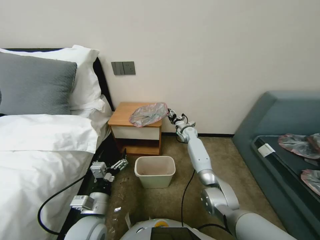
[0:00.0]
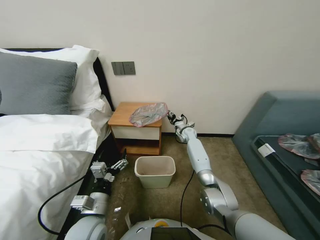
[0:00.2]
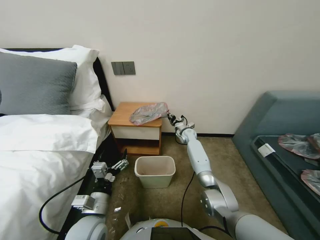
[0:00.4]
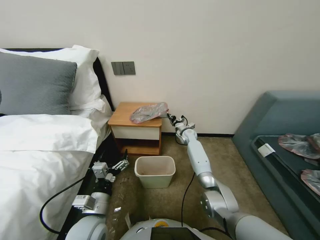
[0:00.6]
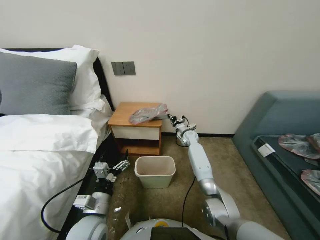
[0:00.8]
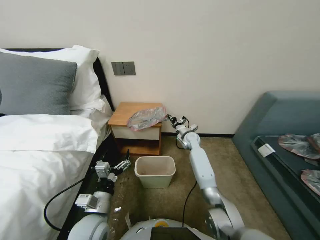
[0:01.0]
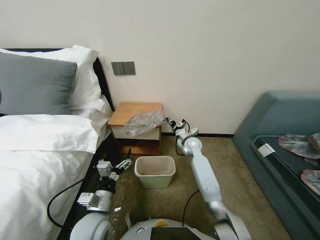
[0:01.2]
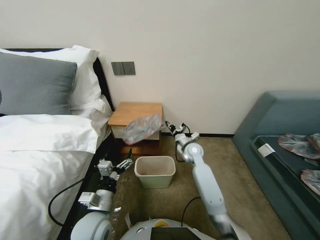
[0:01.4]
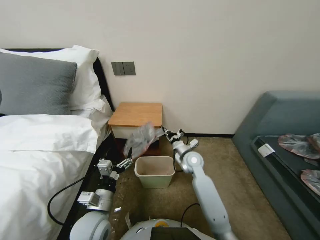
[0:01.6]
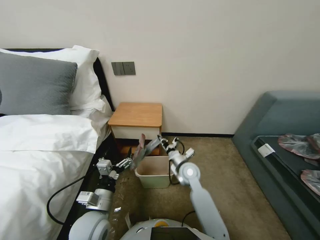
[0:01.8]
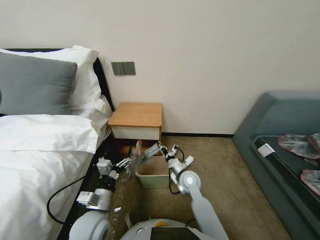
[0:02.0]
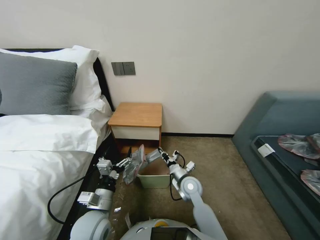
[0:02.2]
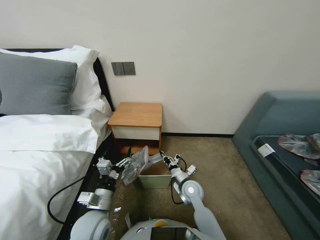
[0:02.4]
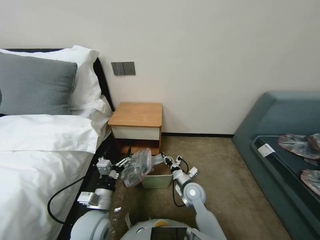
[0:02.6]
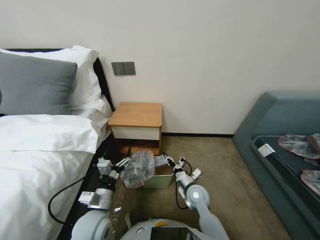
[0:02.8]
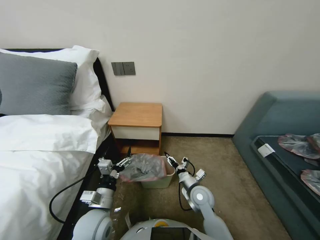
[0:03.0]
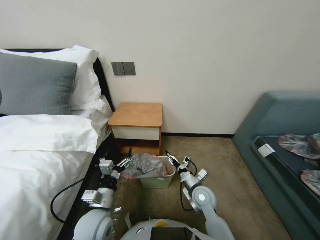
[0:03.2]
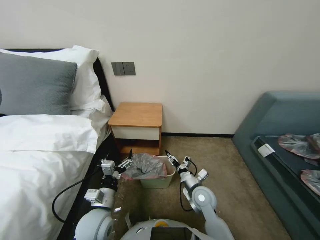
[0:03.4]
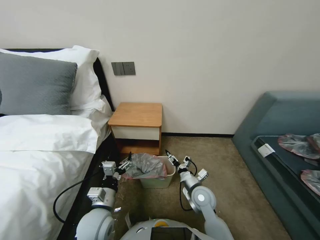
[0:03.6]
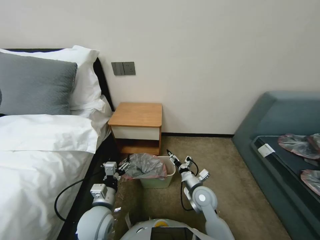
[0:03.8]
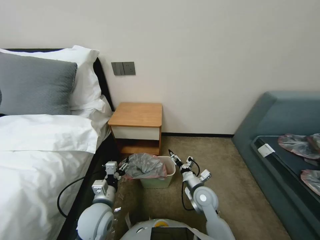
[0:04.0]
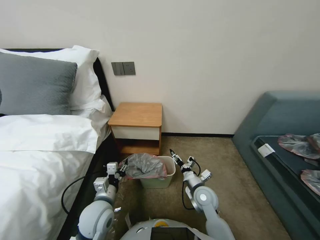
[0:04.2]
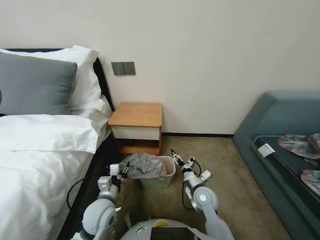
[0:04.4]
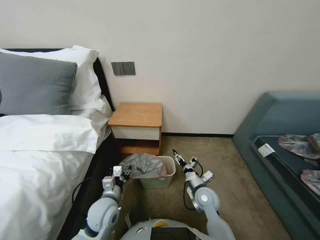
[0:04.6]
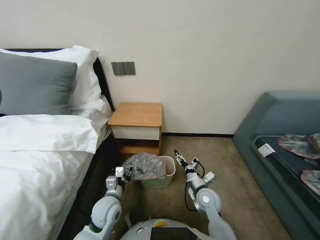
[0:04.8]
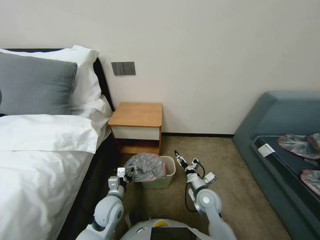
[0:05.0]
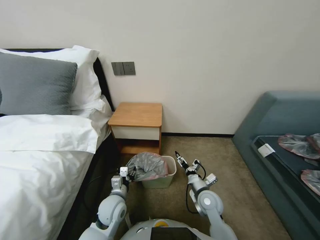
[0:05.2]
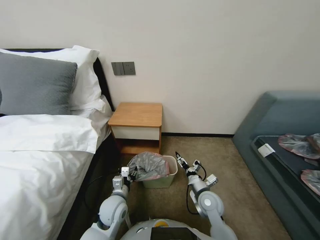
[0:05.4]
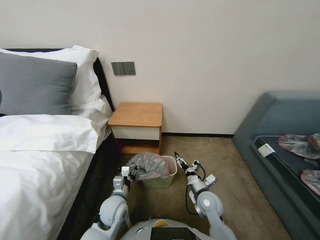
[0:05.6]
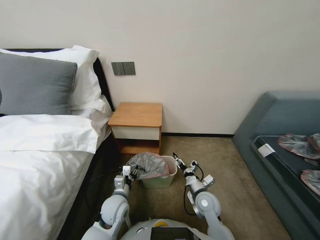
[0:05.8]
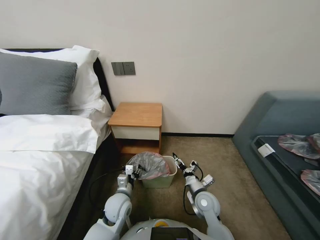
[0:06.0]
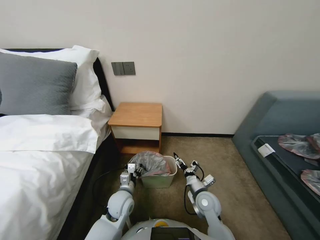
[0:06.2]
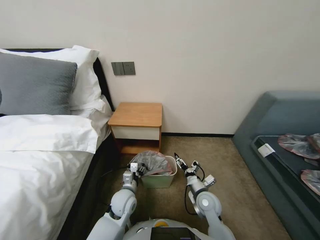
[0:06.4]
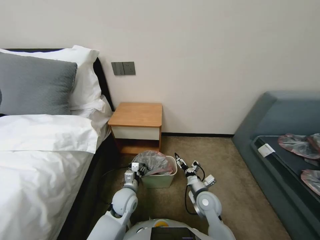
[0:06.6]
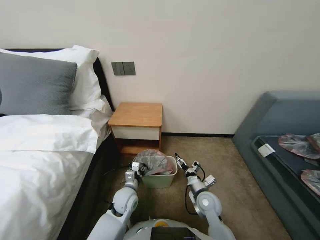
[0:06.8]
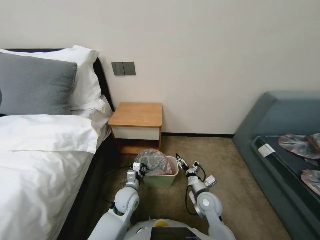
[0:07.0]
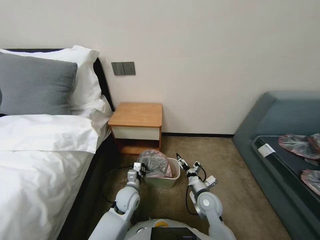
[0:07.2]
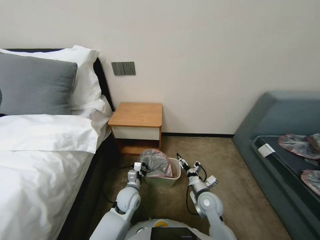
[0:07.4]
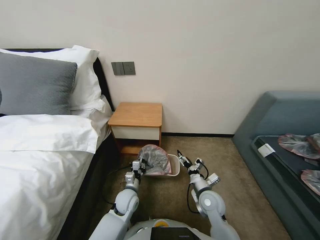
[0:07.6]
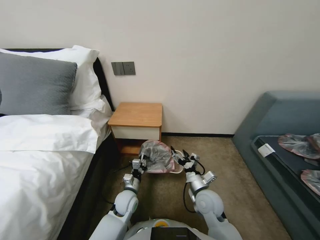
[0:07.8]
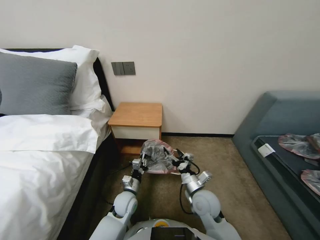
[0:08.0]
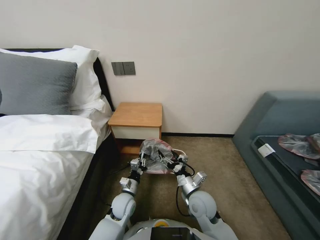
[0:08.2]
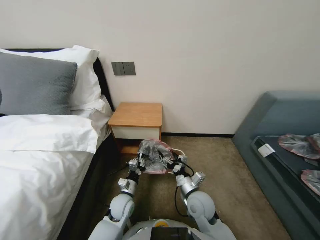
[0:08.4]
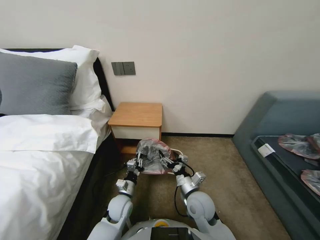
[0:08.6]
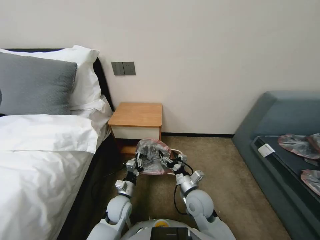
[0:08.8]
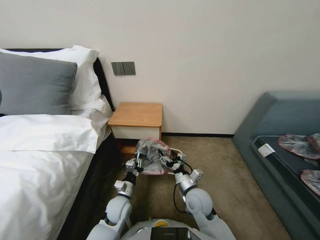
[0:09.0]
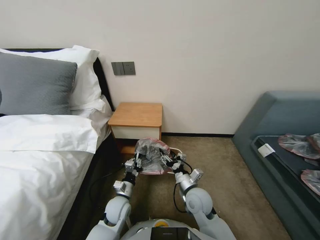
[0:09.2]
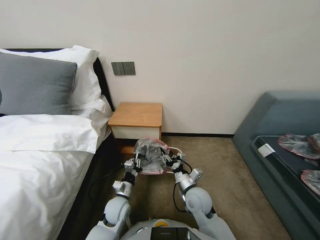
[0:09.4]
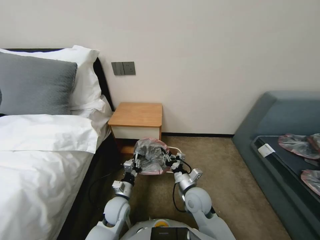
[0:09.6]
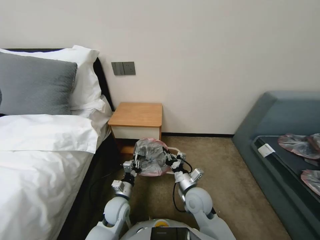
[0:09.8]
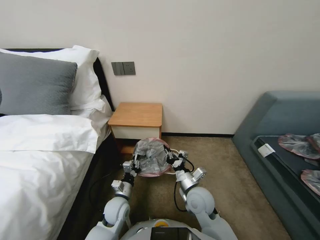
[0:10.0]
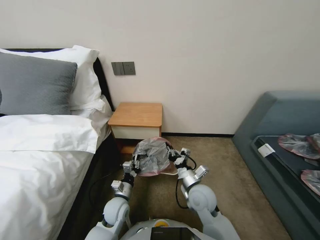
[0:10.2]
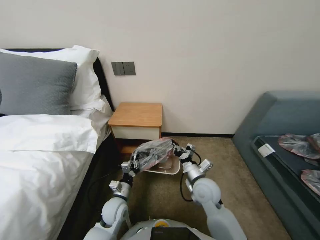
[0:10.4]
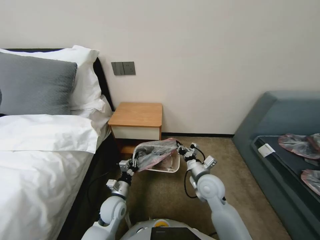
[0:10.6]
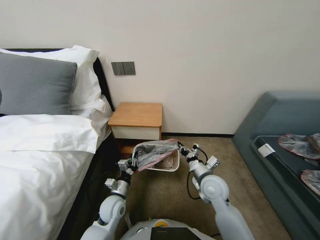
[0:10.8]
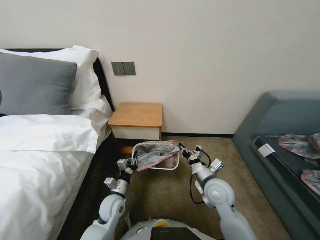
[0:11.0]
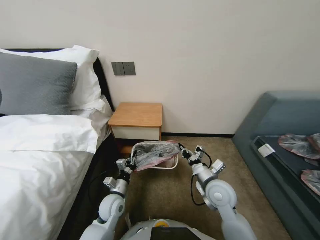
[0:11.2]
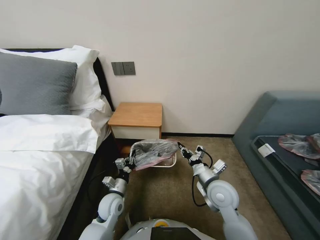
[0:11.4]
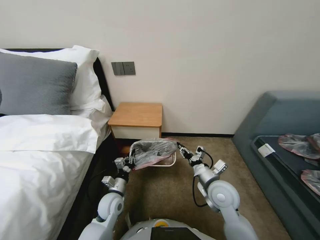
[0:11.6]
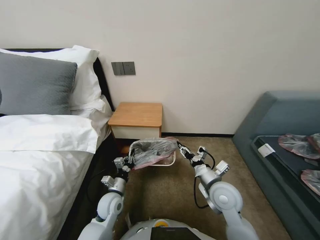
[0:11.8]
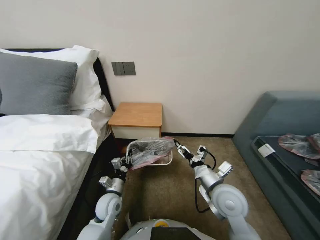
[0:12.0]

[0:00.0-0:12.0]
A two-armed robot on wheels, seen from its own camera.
Task of the whole recording: Pick up the garbage bag from the table and place it over the trash can.
0:00.0 to 0:01.6: The right gripper goes about 20 cm backward, and closes its fingers.
0:01.6 to 0:03.0: The right gripper travels backward and downward by approximately 15 cm, and opens.
0:03.0 to 0:04.4: The right gripper opens. Meanwhile the left gripper closes its fingers.
0:04.4 to 0:06.0: The left gripper shifts roughly 5 cm downward.
0:06.0 to 0:07.6: The left gripper shifts by some 5 cm, and closes.
0:07.6 to 0:09.0: The right gripper shifts about 5 cm to the left.
0:09.0 to 0:10.4: The right gripper closes.
0:10.4 to 0:12.0: The right gripper moves upward, some 5 cm, and opens up.

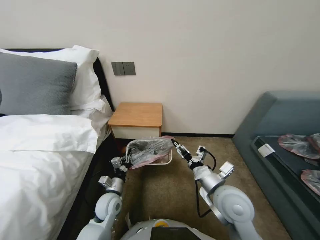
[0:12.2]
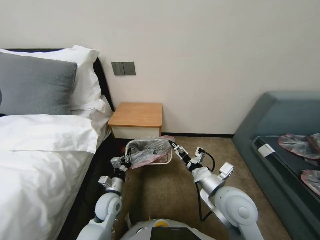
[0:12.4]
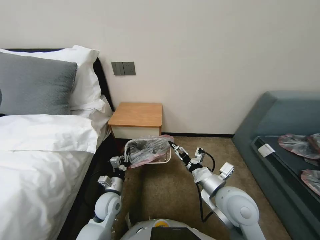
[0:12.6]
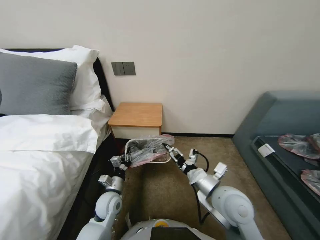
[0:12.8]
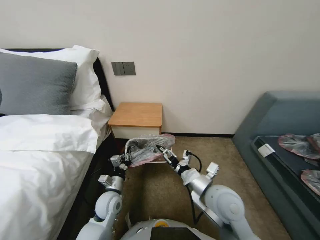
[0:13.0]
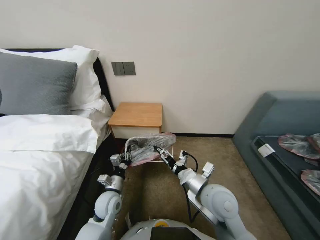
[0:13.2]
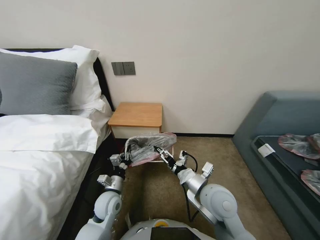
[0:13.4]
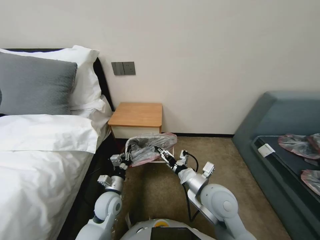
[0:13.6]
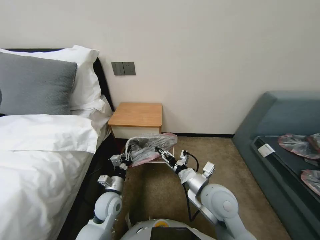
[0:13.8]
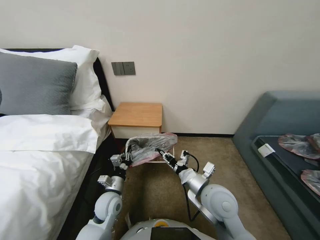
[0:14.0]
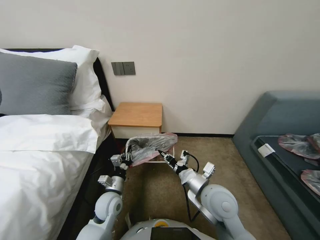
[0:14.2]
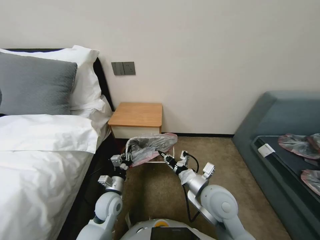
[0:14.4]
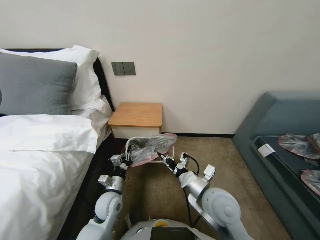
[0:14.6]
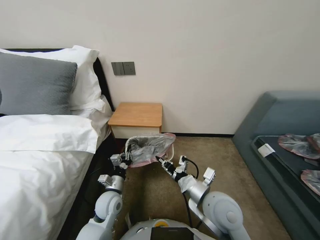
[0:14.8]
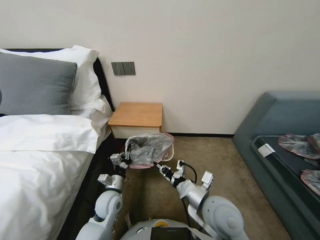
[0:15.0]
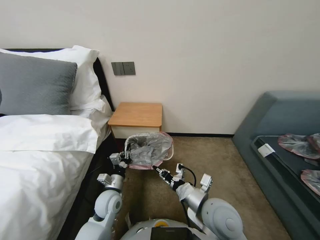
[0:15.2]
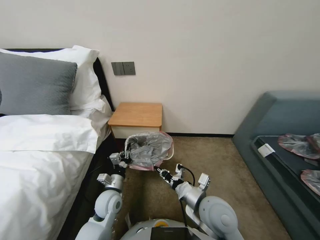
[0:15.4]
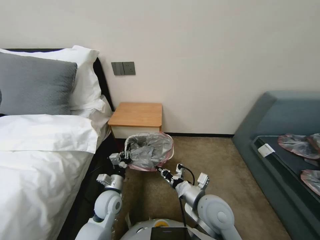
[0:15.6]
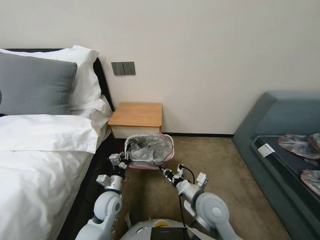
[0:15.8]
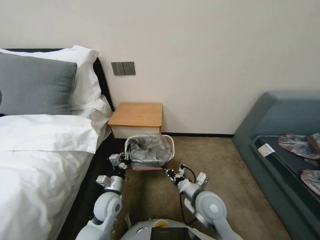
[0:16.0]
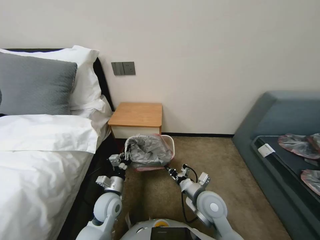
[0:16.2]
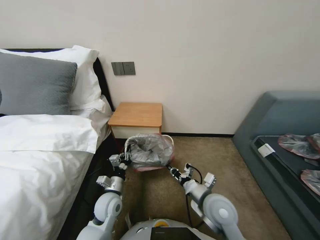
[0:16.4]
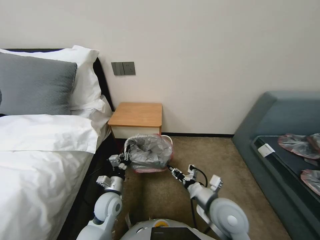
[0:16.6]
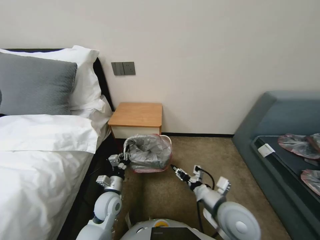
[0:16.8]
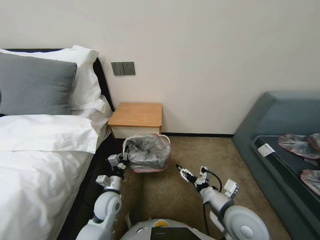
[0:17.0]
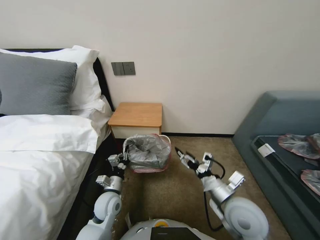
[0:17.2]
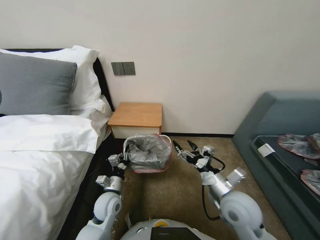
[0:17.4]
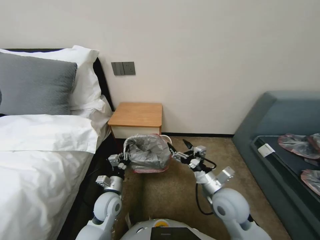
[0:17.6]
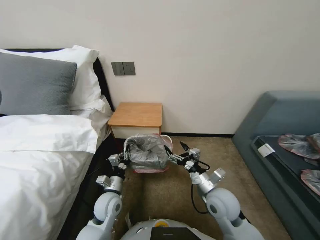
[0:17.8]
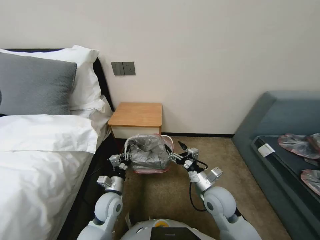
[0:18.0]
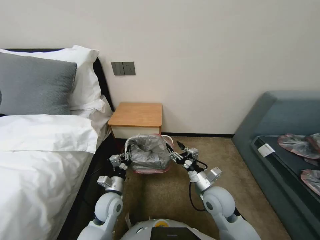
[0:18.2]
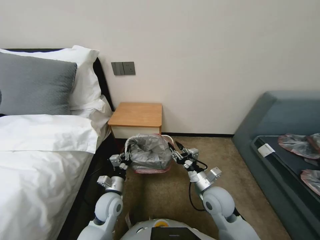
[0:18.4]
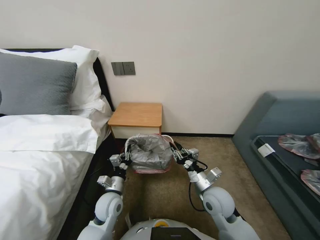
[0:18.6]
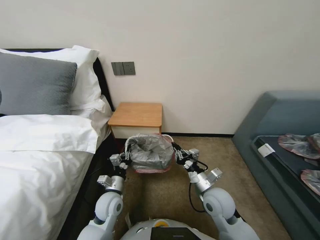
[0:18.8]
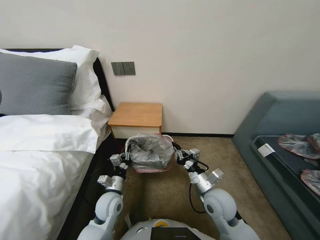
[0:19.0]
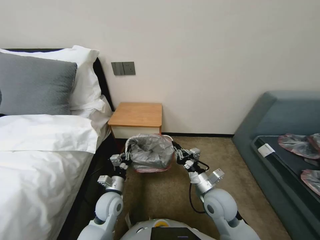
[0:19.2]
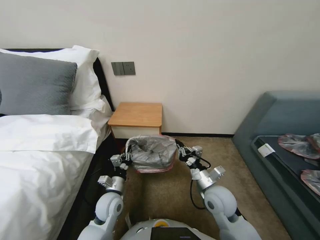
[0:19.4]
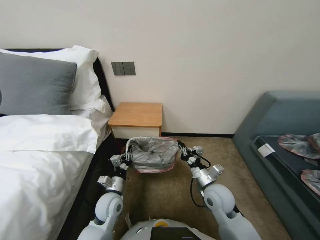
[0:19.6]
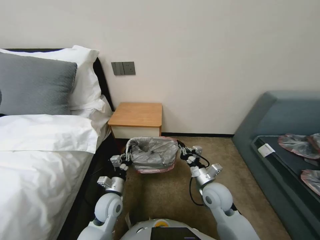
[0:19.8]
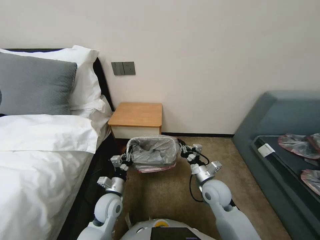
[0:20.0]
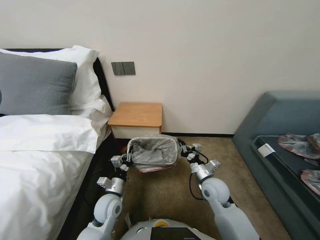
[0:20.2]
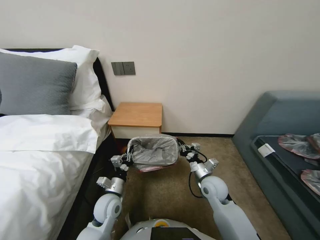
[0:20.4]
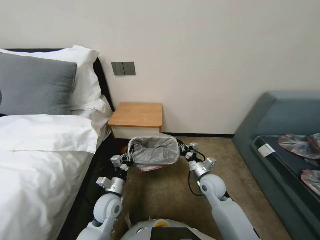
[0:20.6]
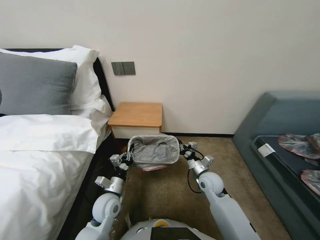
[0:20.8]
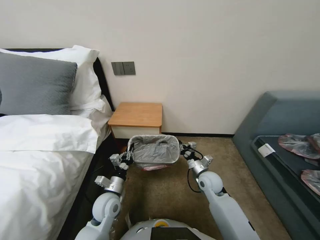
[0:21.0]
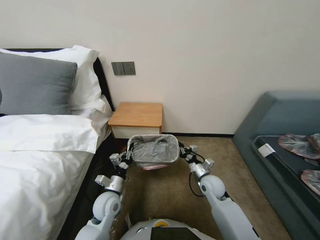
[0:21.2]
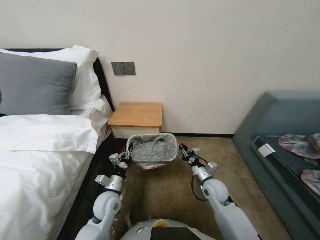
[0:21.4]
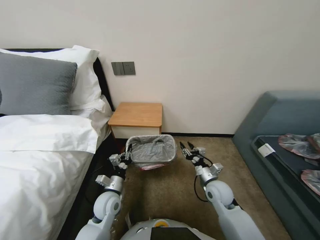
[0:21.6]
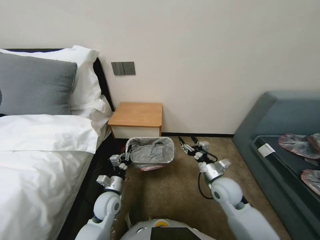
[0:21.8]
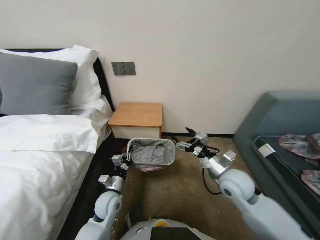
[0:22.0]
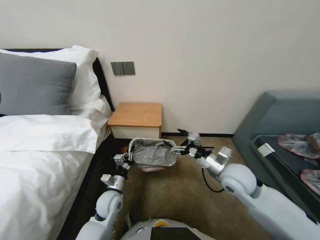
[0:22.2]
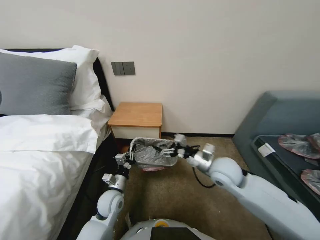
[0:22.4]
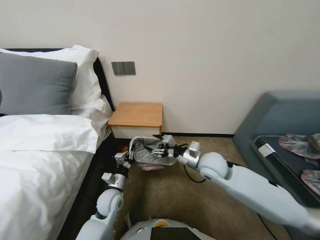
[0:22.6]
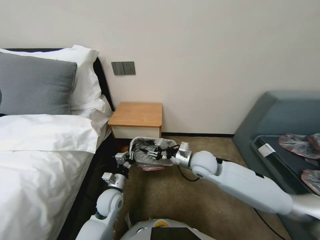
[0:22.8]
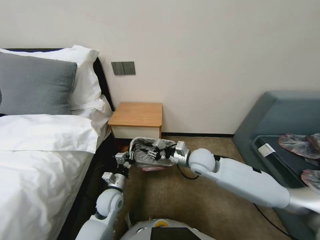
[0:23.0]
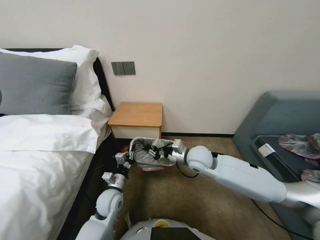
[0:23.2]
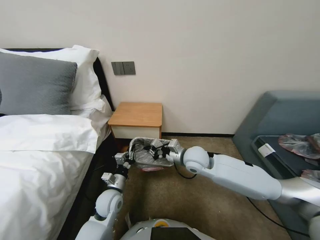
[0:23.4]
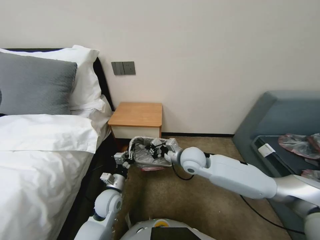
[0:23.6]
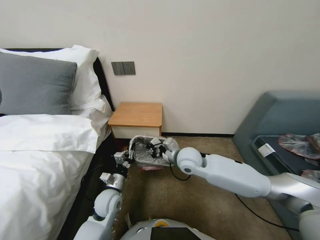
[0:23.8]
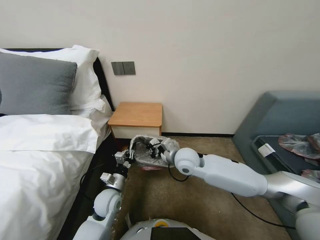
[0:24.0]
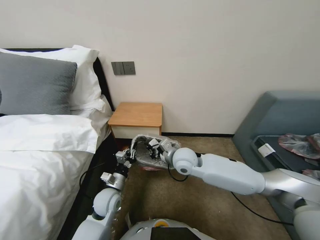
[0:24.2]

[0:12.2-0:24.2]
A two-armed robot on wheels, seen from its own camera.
Task of the whole recording: Pick up the garbage bag from the table and place it over the trash can.
0:12.2 to 0:13.8: The right gripper closes.
0:13.8 to 0:15.2: The right gripper closes its fingers.
0:16.6 to 0:18.2: The right gripper opens its fingers.
0:18.2 to 0:19.8: The right gripper closes up.
0:19.8 to 0:21.2: The right gripper moves forward, approximately 5 cm.
0:21.2 to 0:22.6: The right gripper goes approximately 15 cm upward, and opens up.
0:22.6 to 0:24.2: The right gripper travels to the left by some 10 cm, and closes.
